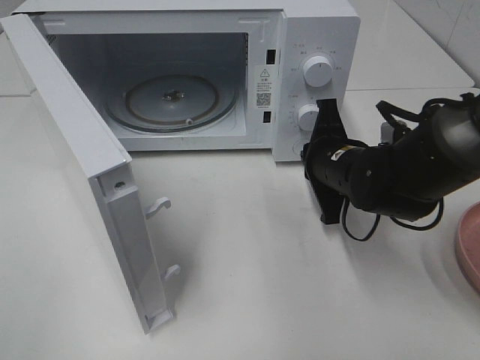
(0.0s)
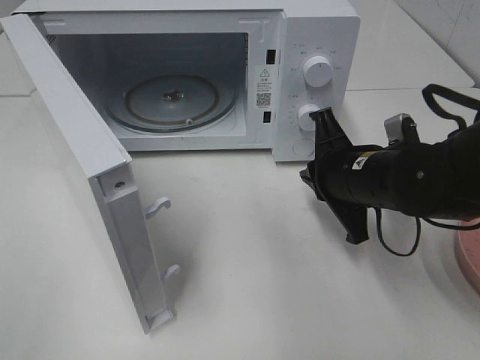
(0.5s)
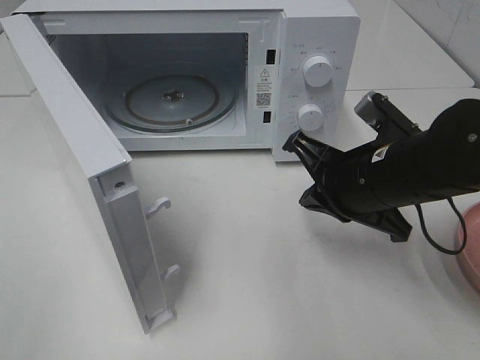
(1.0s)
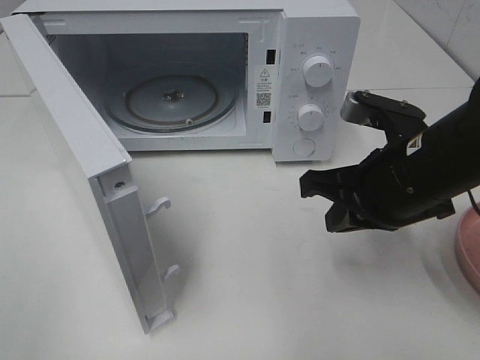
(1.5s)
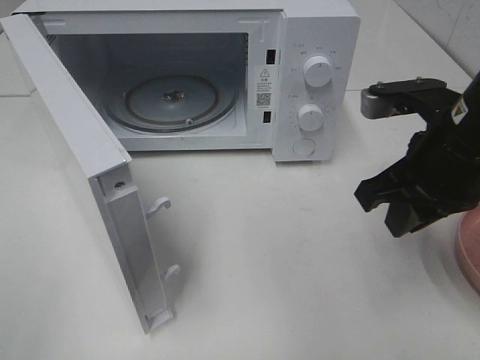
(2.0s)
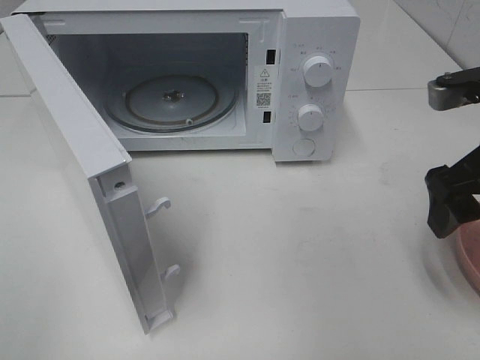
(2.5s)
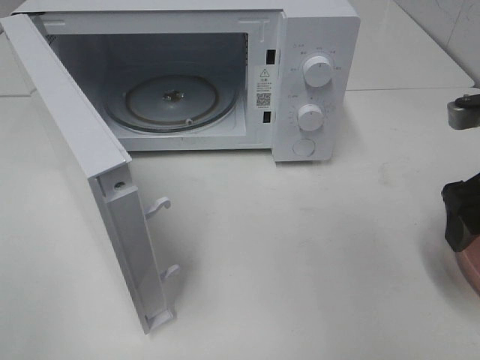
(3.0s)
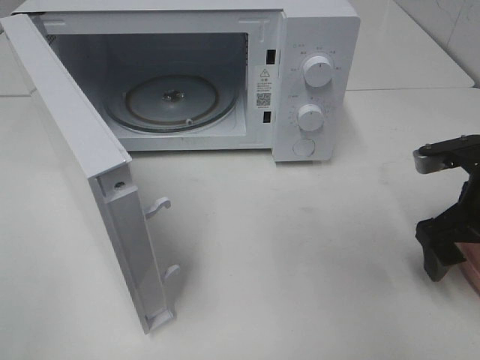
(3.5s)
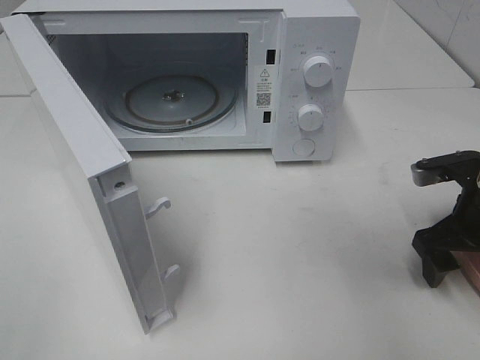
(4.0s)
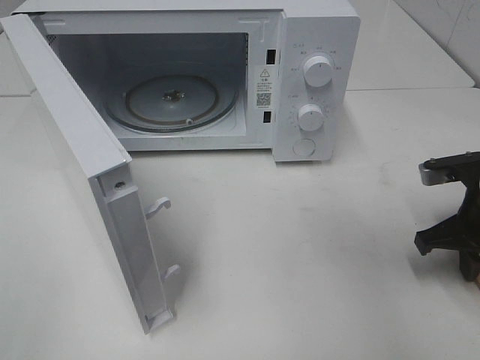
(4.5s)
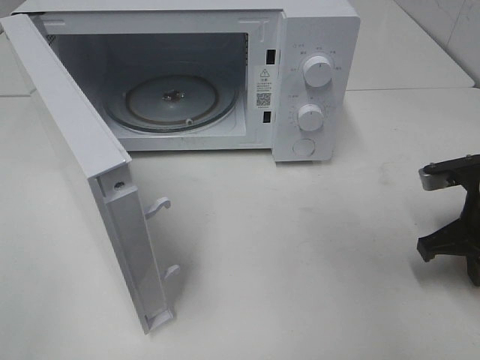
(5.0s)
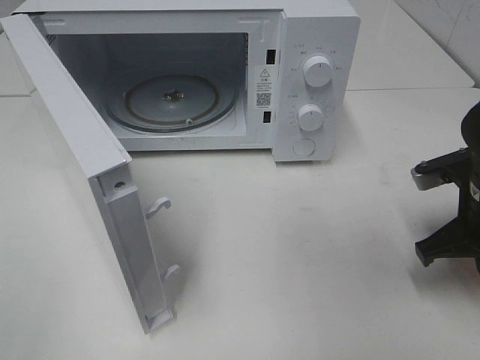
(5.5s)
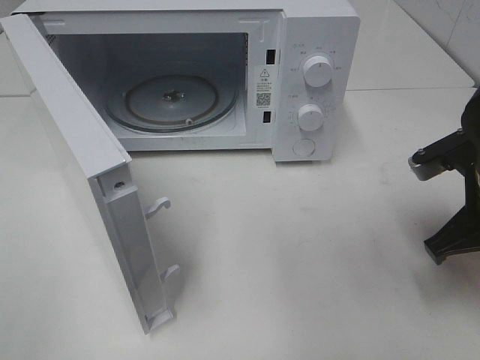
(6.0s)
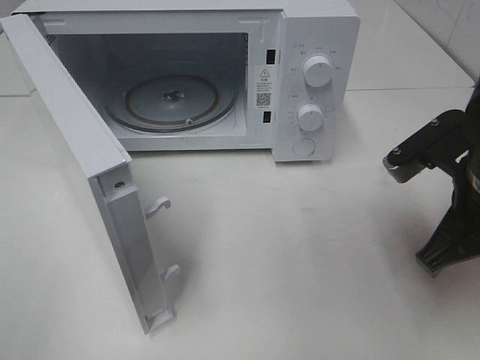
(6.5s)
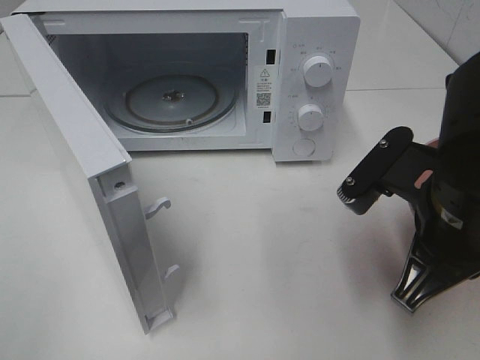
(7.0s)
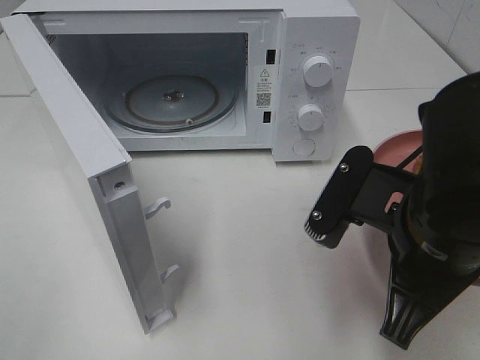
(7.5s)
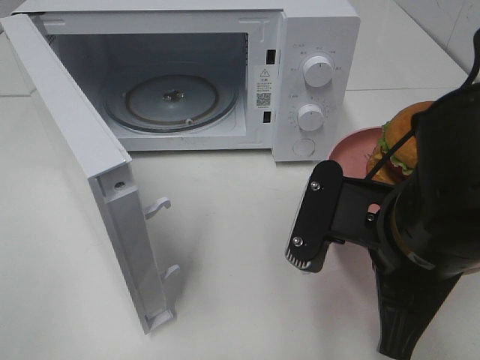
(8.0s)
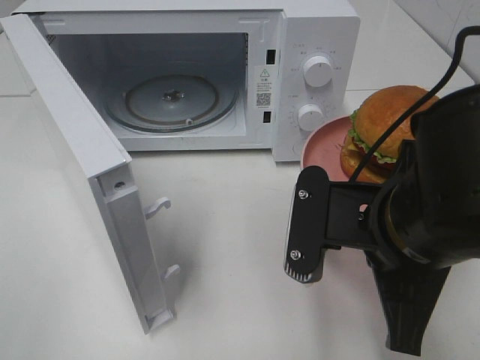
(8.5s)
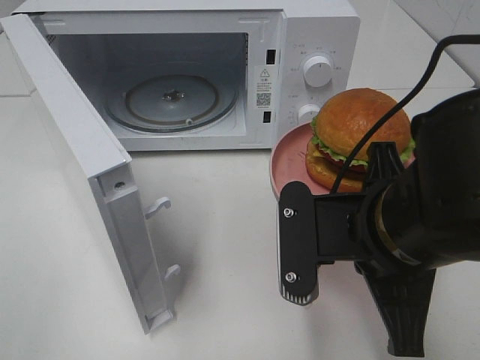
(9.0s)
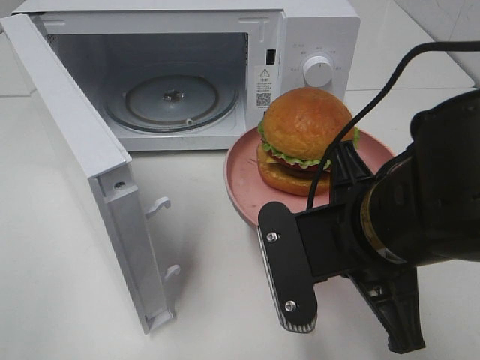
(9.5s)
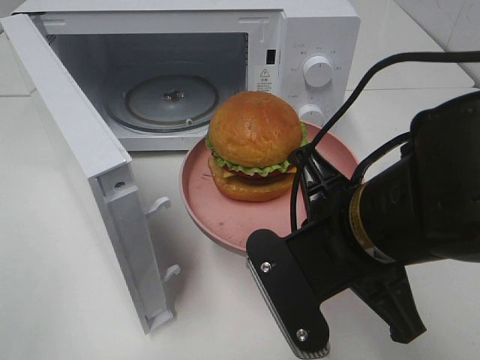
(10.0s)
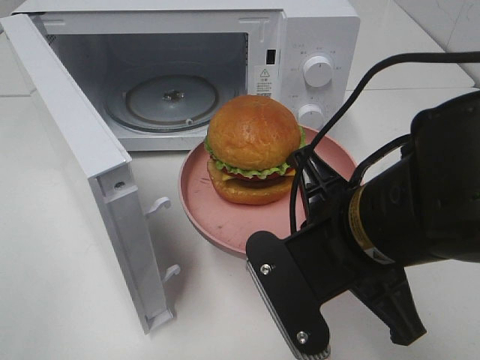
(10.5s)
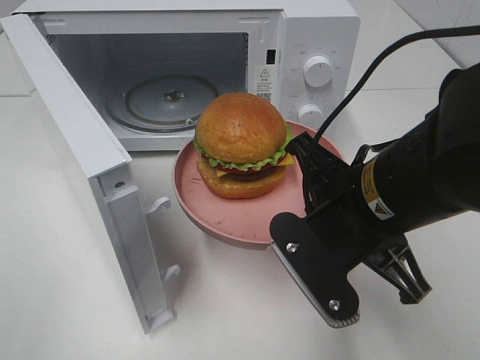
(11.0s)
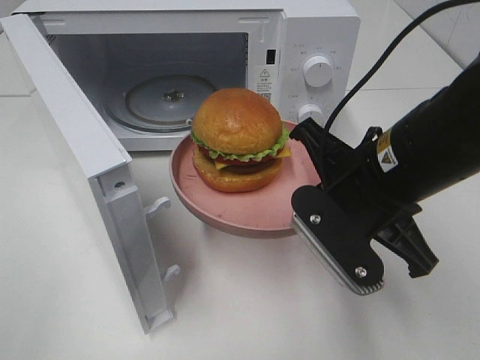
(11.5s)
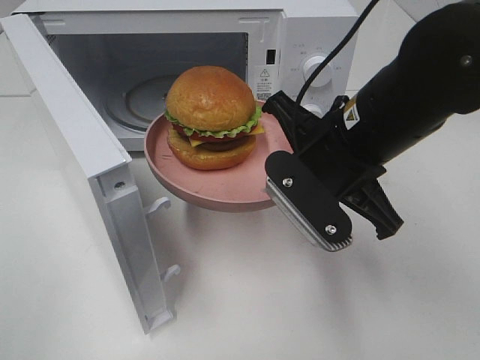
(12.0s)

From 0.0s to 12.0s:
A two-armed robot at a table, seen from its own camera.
Task of the whole recording: Heat the burger.
Step, from 0.5s to 5.0s: Right hand: grab the plate with the hamburger.
From 0.0s to 2.0s: The right gripper moves upward and backward, roughly 15 cm.
From 2.0s to 4.0s: The right gripper is displaced downward and to the right by approximately 15 cm, and opens up.
From 4.0s to 6.0s: The right gripper goes approximately 5 cm upward, and closes.
From 6.0s to 8.0s: The right gripper shifts approximately 15 cm to the left and backward.
From 10.0s to 12.0s: The right gripper heads forward, covering approximately 10 cm.

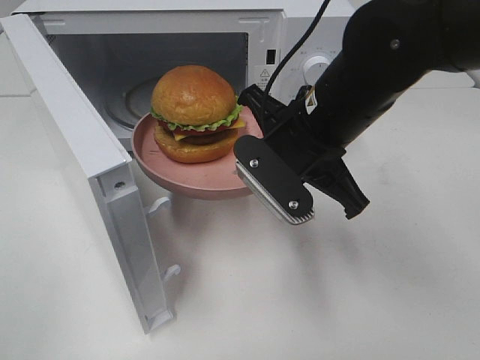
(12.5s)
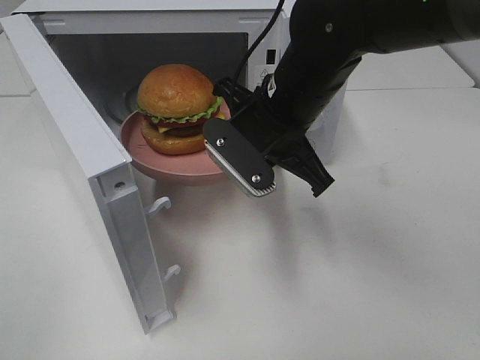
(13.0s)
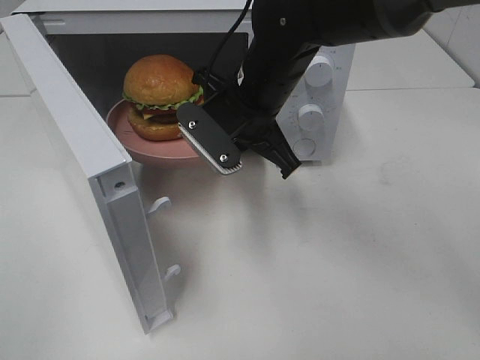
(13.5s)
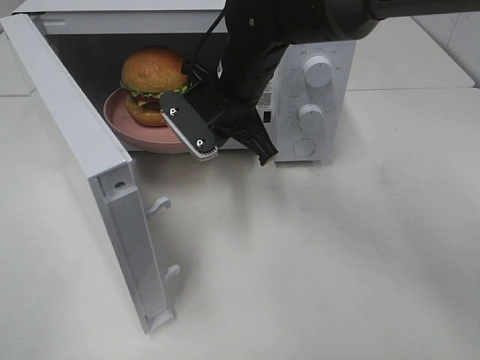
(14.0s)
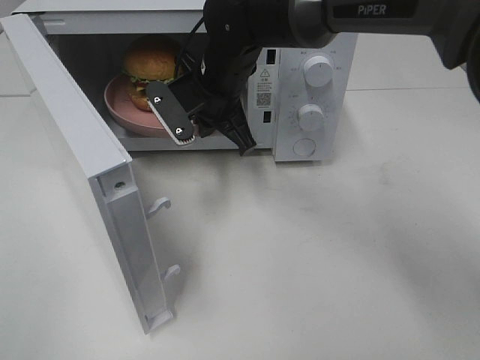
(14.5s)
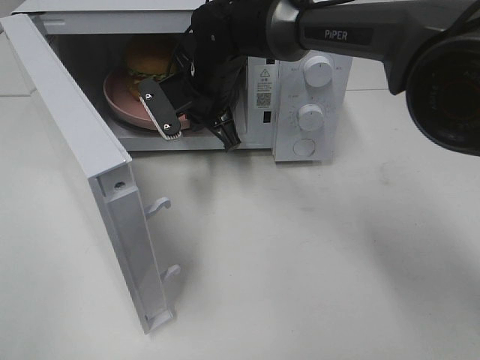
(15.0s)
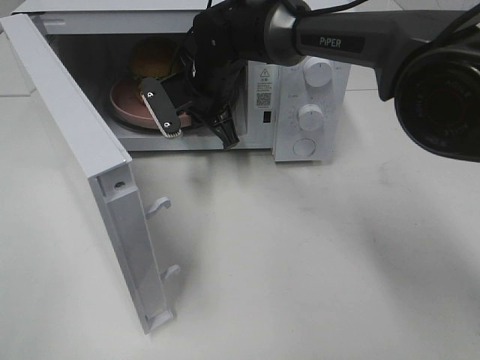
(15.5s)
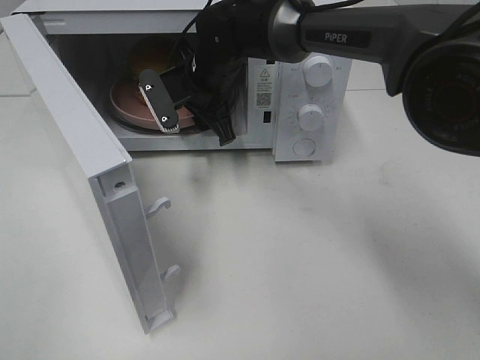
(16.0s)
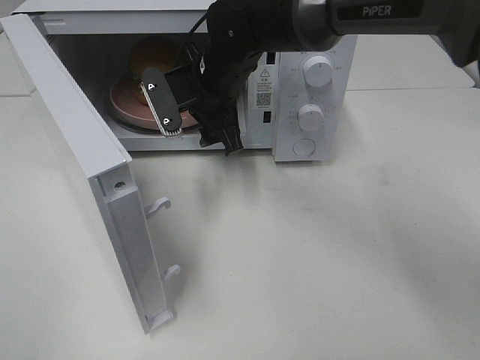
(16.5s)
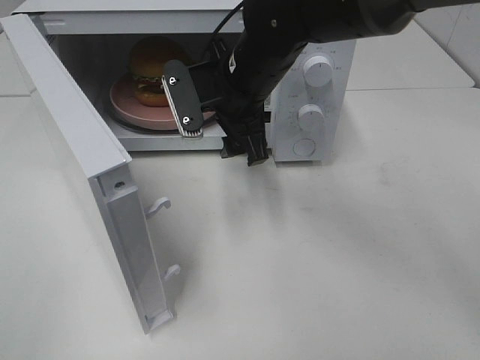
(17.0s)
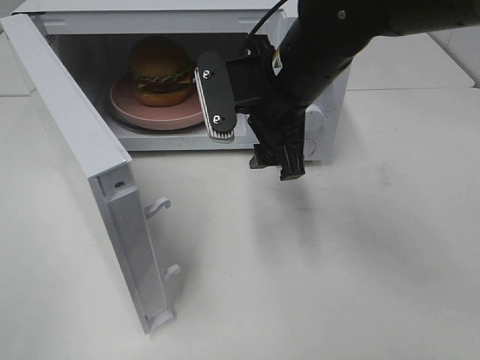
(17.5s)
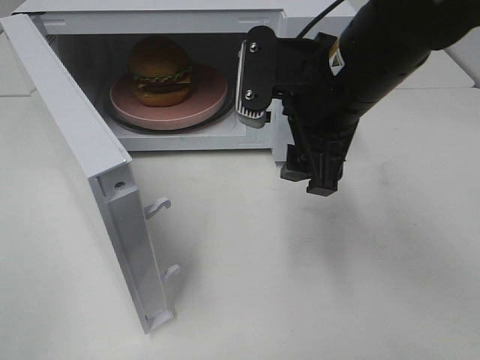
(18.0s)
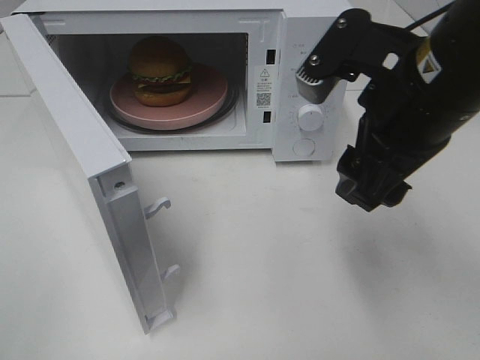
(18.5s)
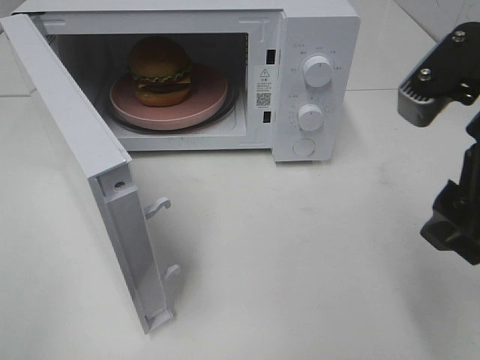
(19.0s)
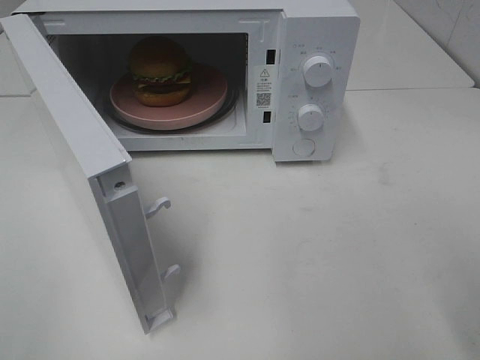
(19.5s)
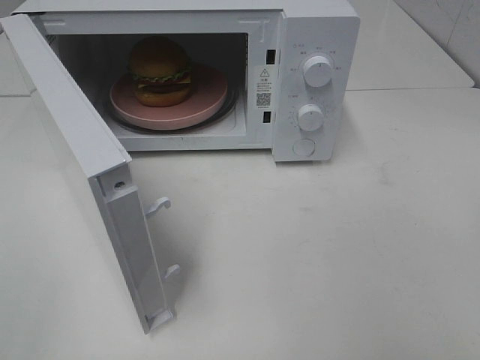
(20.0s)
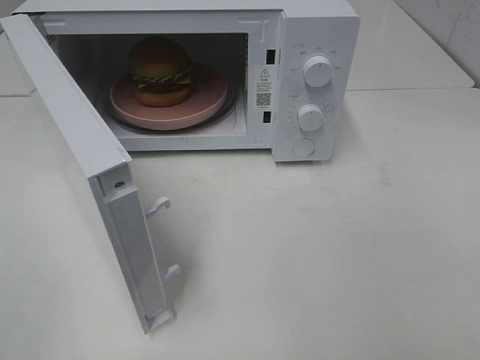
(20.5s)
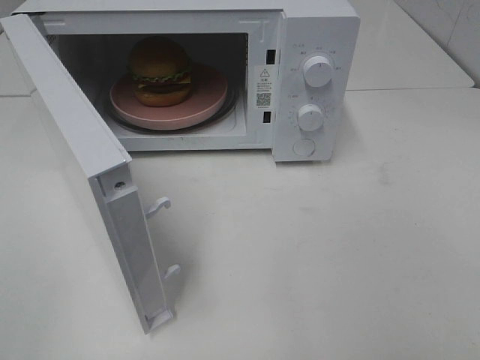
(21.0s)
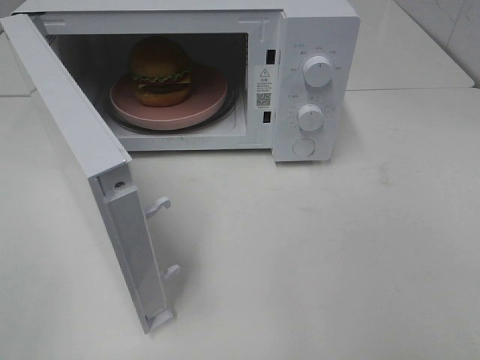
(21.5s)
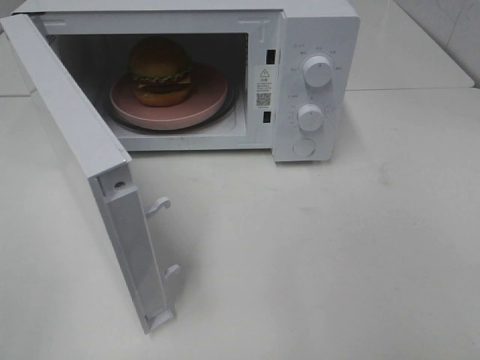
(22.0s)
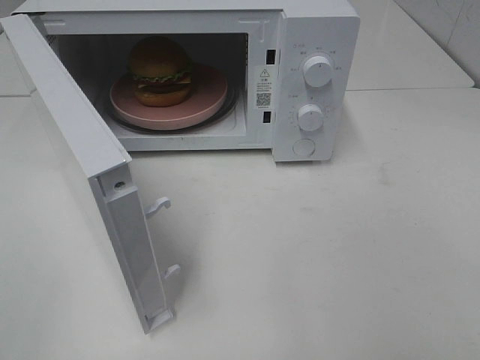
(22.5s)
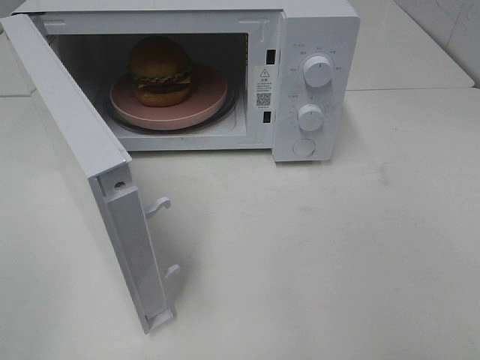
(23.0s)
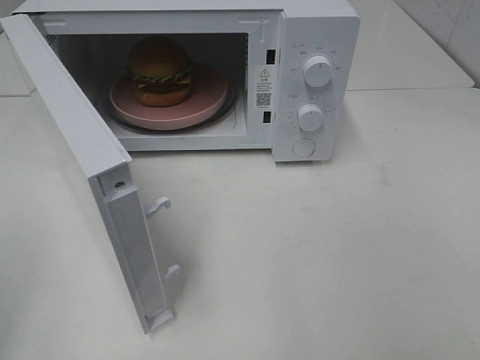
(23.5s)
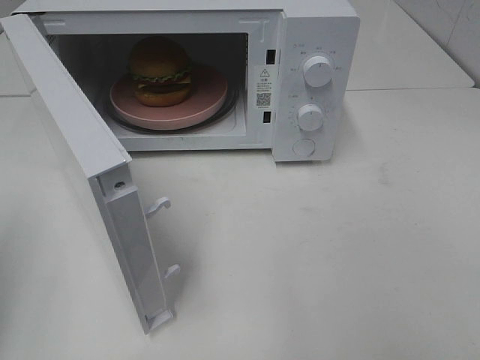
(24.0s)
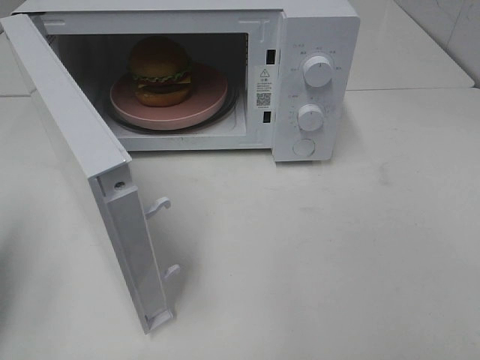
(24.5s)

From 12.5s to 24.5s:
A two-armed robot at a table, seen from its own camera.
Task of the whole recording: Heat the burger.
Step, from 12.5s to 16.0s: Right hand: place the plate in the microwave.
From 12.5s to 14.5s: The right gripper travels forward and to the left by about 15 cm.
From 14.5s to 16.5s: The right gripper opens up.
From 16.5s to 18.5s: The right gripper heads backward, to the right and upward, covering about 25 cm.
From 18.5s to 20.5s: The right gripper moves backward and to the right, about 25 cm.
From 22.5s to 24.5s: The left gripper shifts roughly 20 cm forward and downward, and closes.

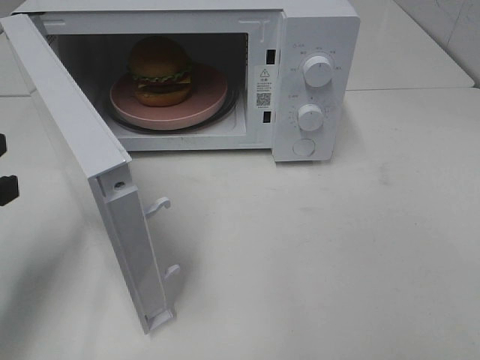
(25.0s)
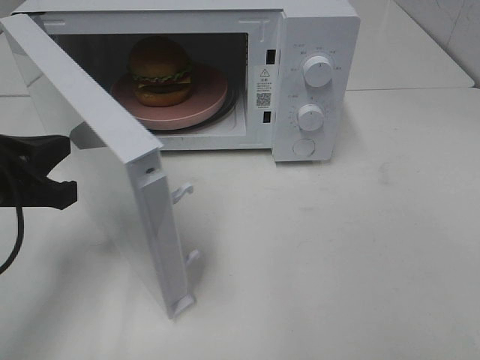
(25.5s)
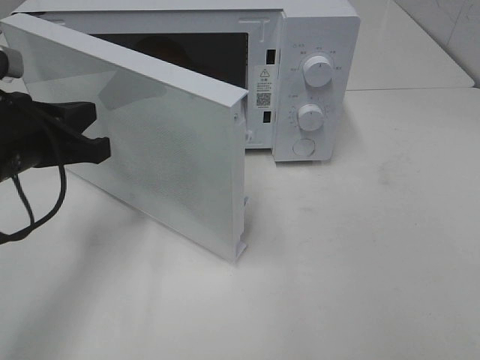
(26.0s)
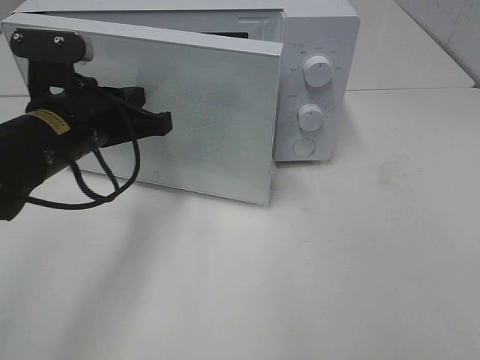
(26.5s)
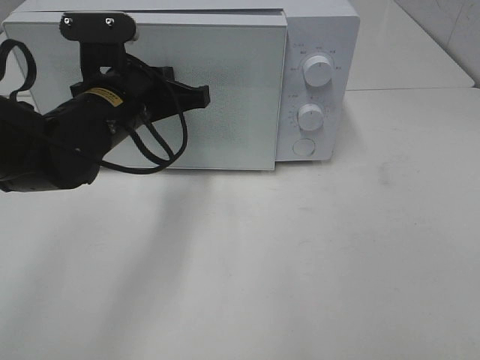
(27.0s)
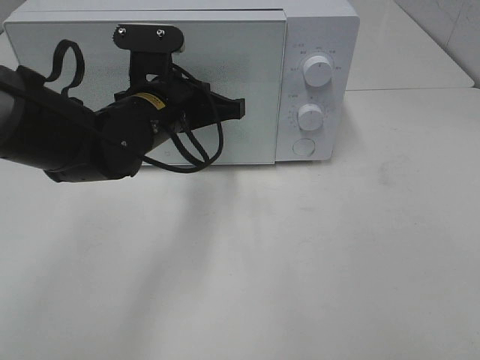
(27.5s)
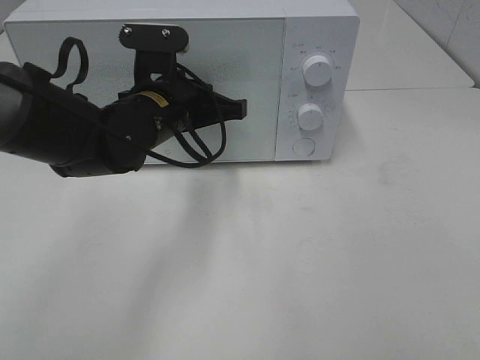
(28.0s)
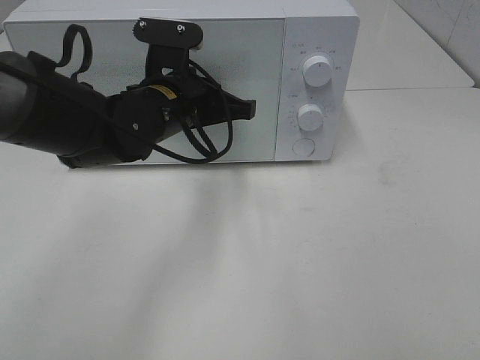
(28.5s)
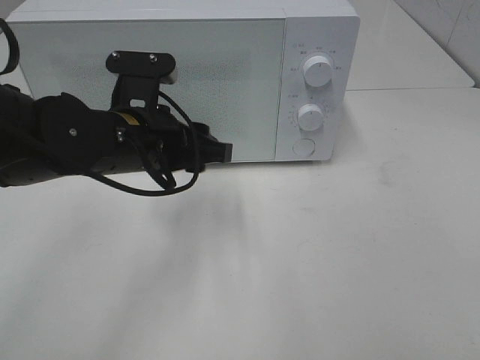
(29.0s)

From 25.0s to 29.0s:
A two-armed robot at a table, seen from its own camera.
Task of the whole recording: Heat the burger.
From 25.0s to 27.0s: The left gripper heads to the right and forward, covering roughly 20 cm.
From 27.0s to 29.0s: The left gripper opens up.
